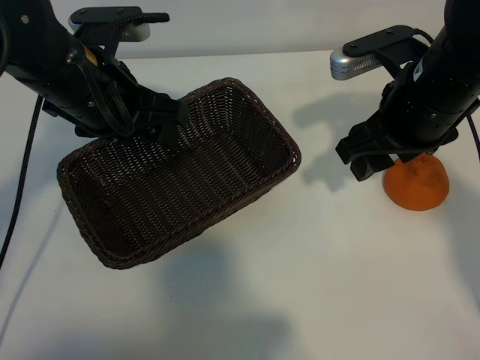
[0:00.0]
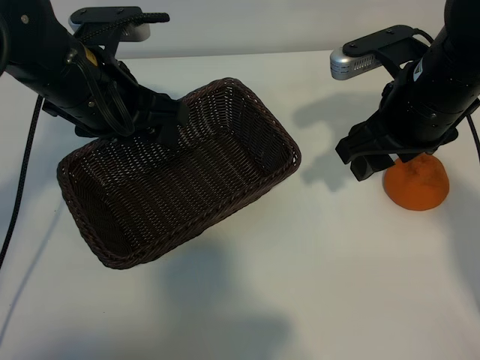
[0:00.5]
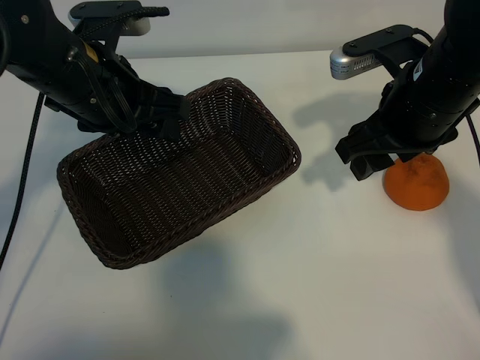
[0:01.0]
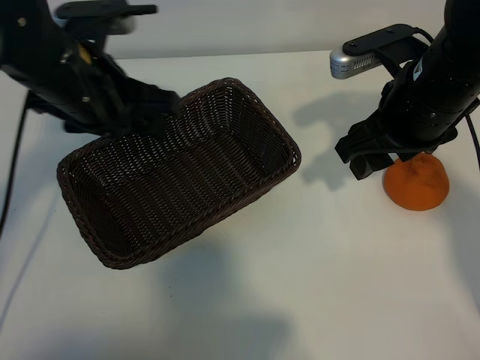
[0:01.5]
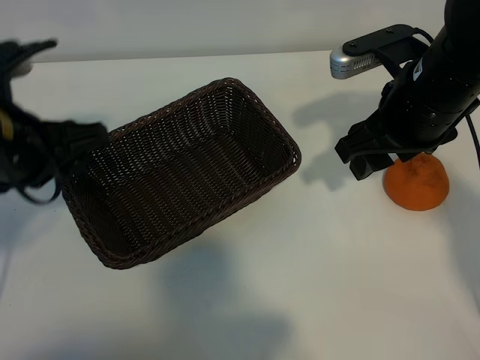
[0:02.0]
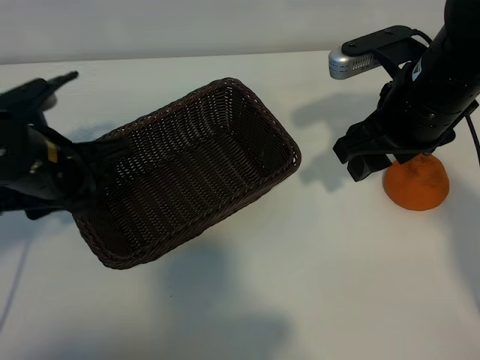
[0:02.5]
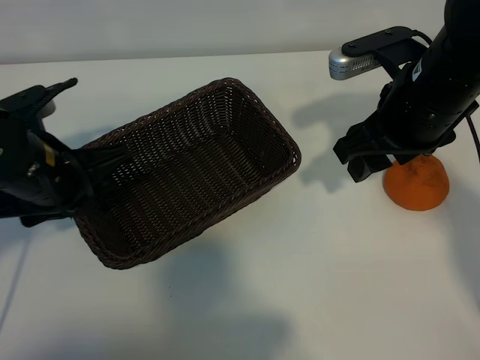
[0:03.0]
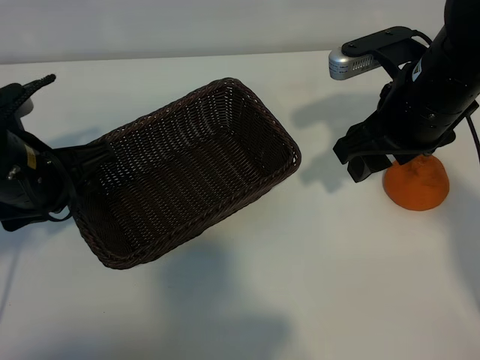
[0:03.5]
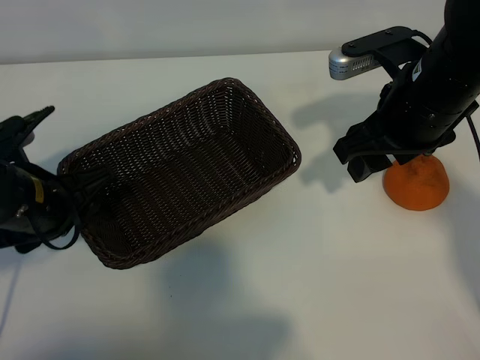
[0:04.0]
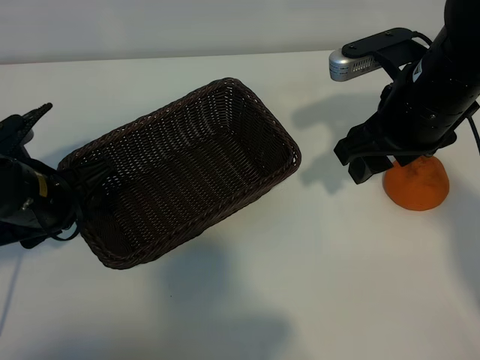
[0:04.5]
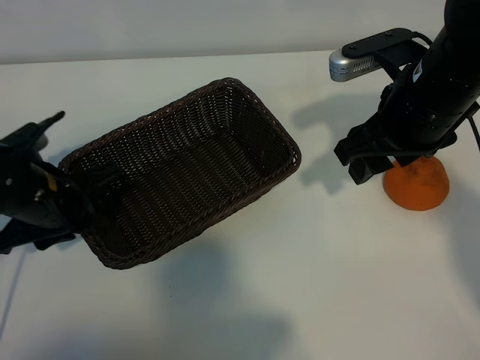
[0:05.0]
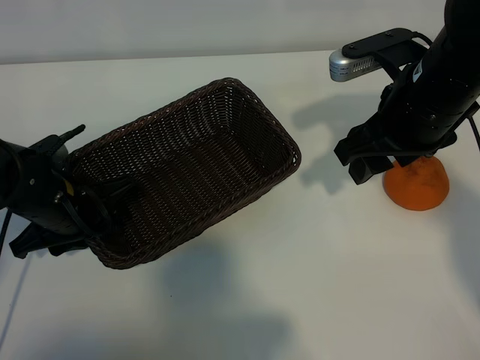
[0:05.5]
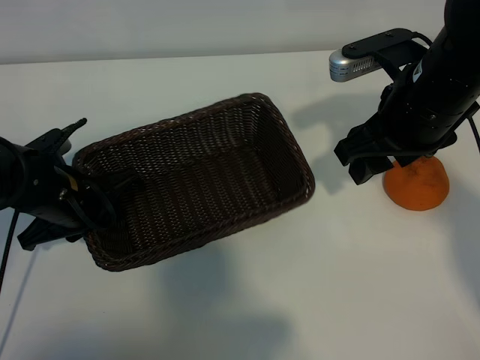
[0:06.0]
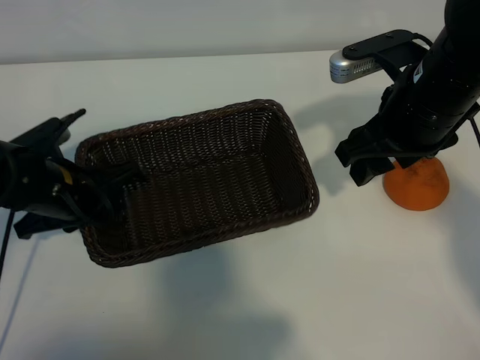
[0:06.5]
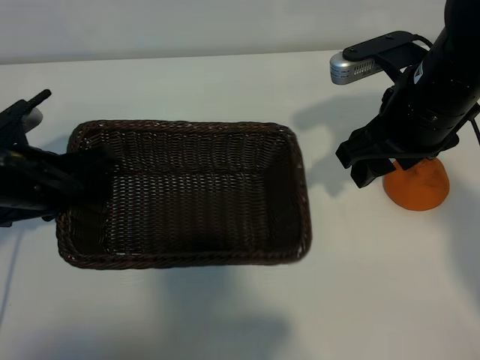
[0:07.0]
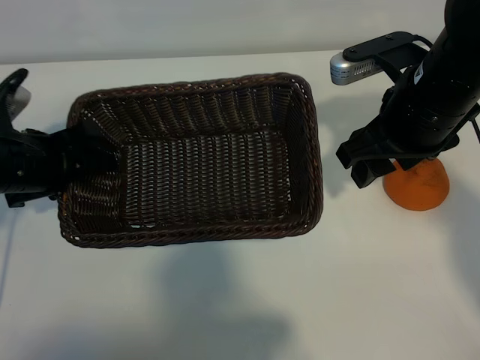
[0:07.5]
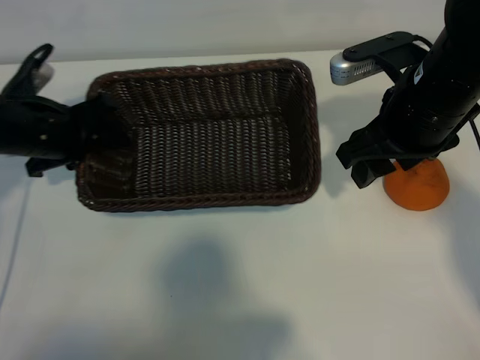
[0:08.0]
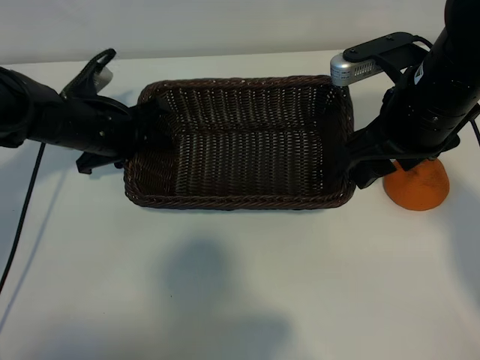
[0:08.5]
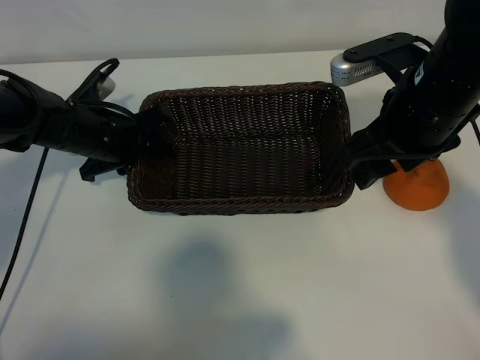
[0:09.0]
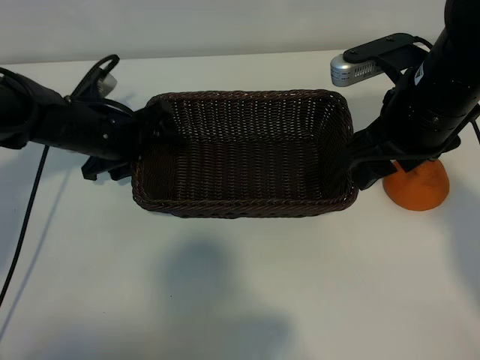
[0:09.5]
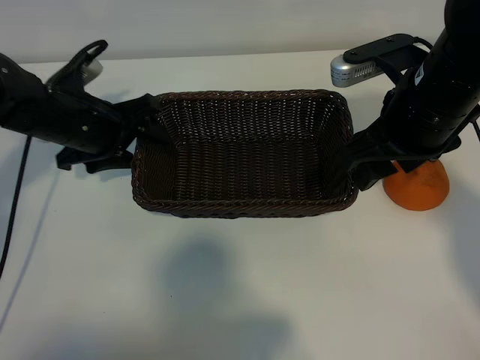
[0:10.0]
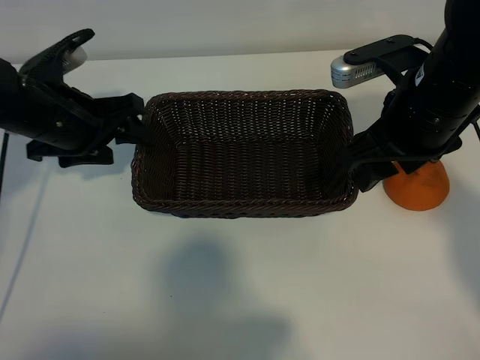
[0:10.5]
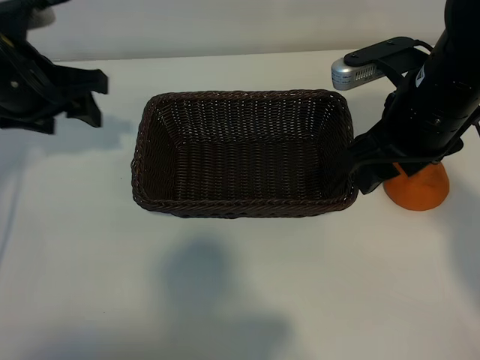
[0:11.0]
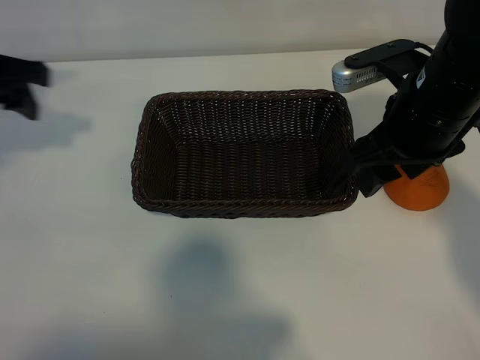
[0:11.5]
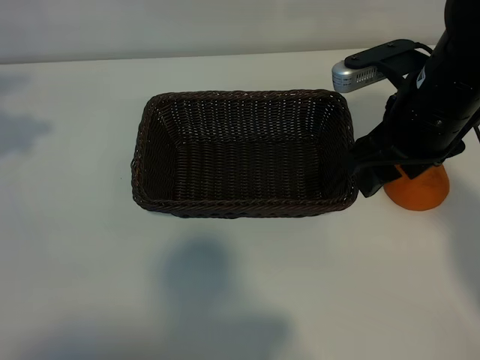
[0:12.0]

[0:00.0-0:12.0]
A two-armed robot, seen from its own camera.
Task of the whole recording: pick up the orange and put it into the basket.
Step, 0:01.0 to 0:05.5: Grasp the basket with left gripper.
Step, 0:06.0 to 0:09.0: Place the basket in the center of view with left gripper.

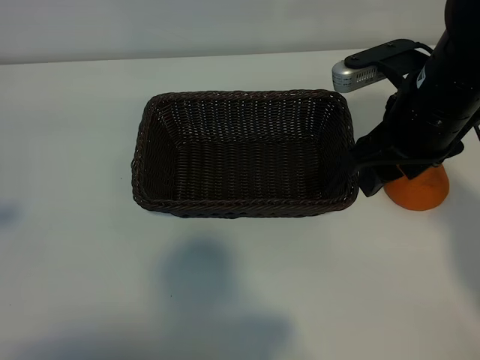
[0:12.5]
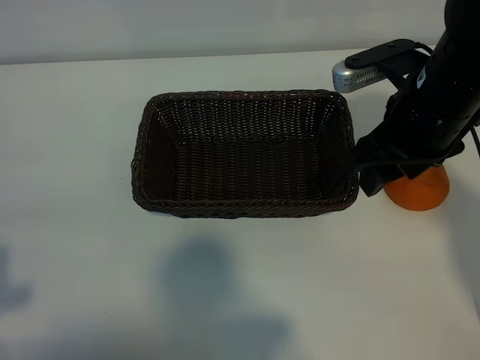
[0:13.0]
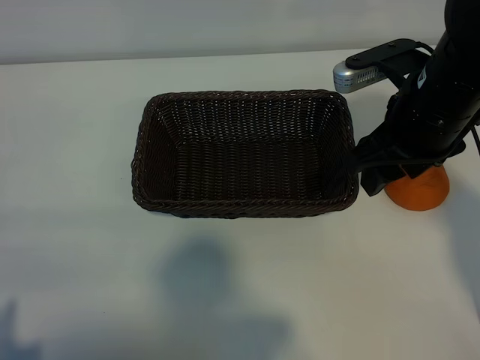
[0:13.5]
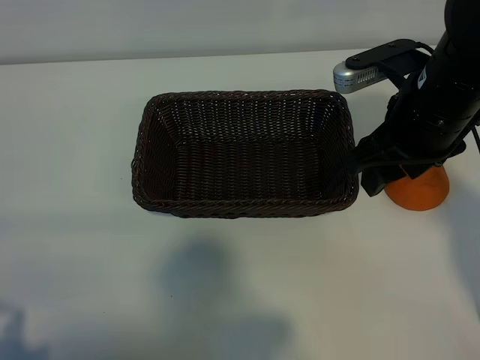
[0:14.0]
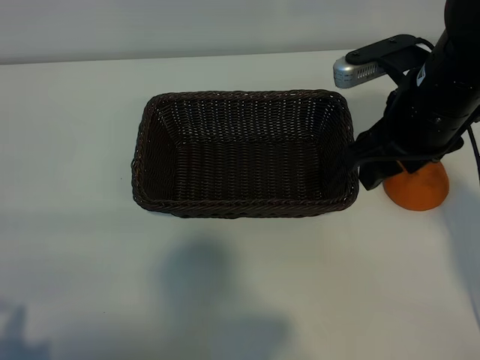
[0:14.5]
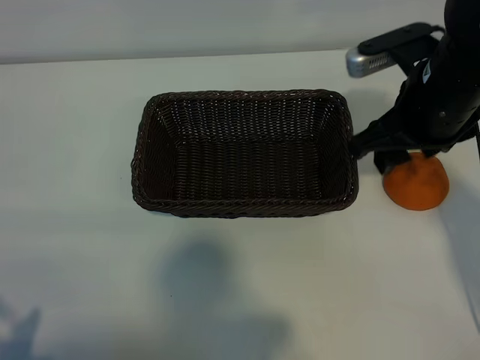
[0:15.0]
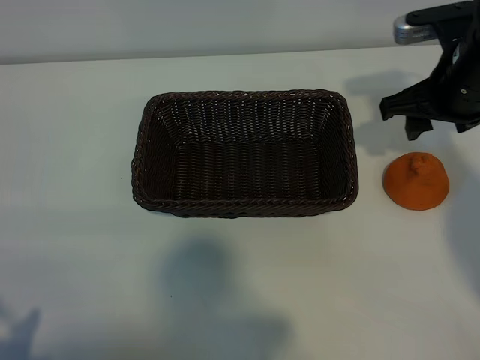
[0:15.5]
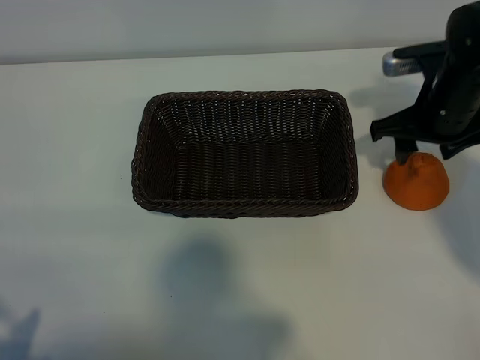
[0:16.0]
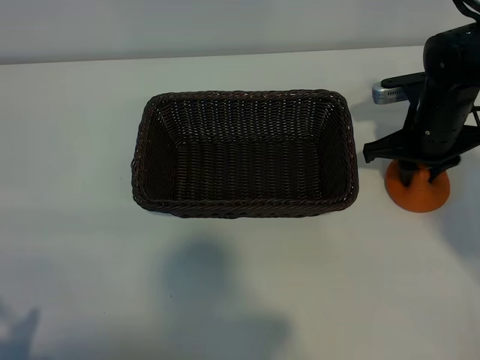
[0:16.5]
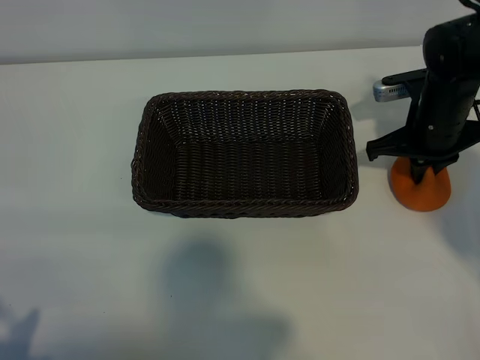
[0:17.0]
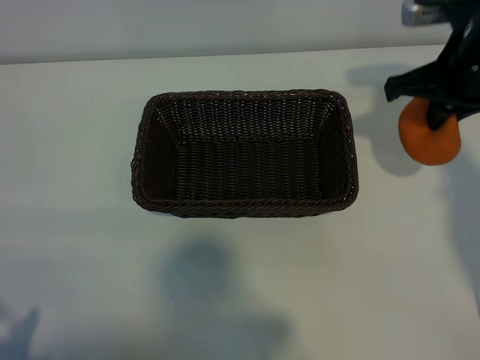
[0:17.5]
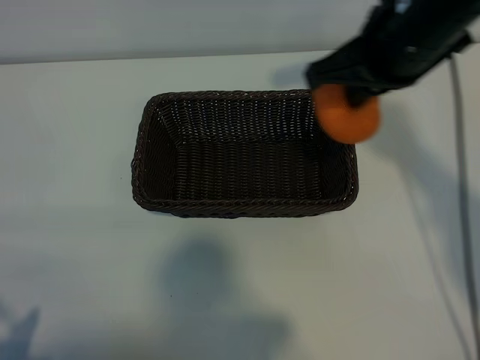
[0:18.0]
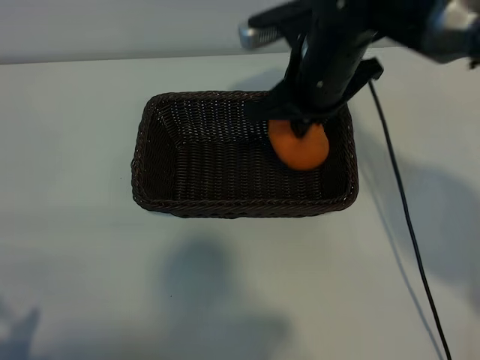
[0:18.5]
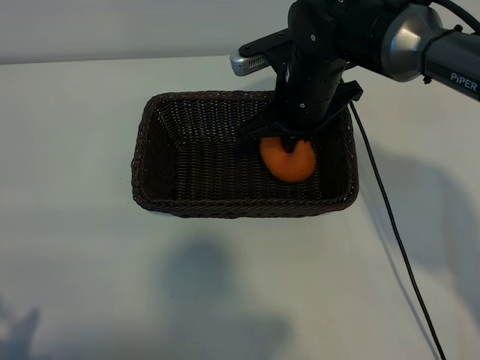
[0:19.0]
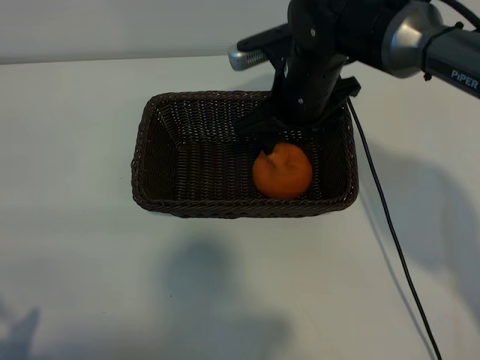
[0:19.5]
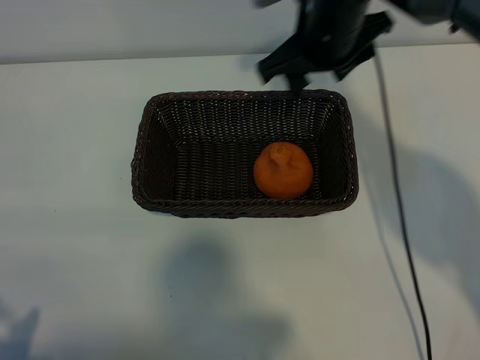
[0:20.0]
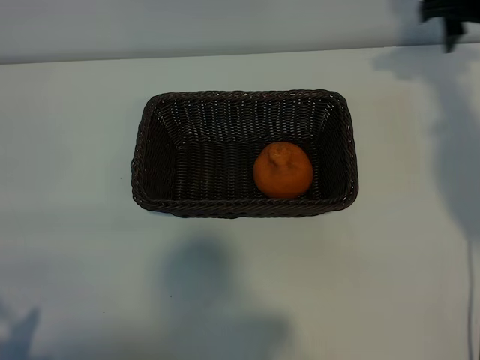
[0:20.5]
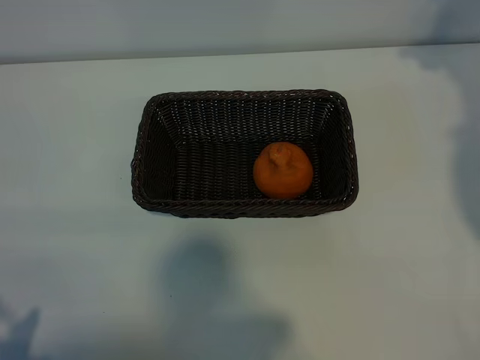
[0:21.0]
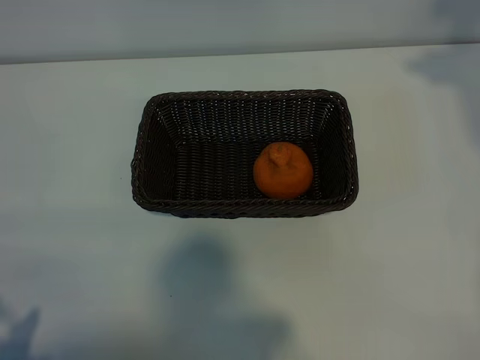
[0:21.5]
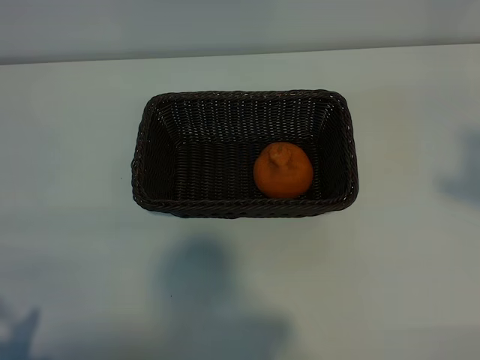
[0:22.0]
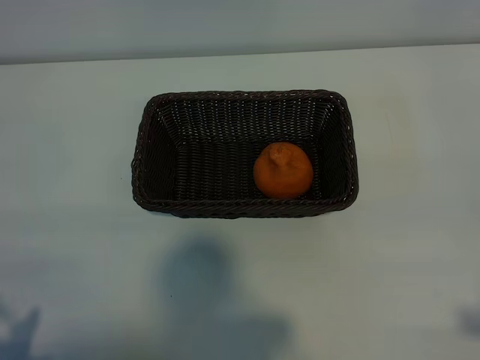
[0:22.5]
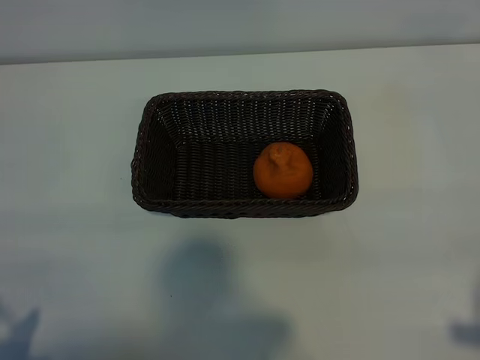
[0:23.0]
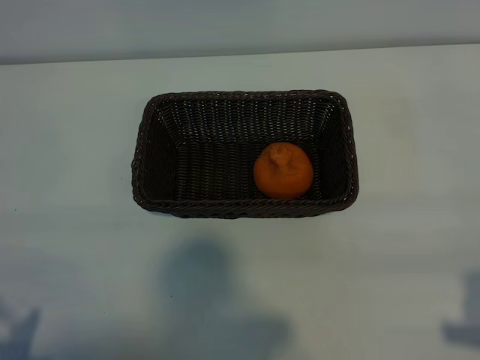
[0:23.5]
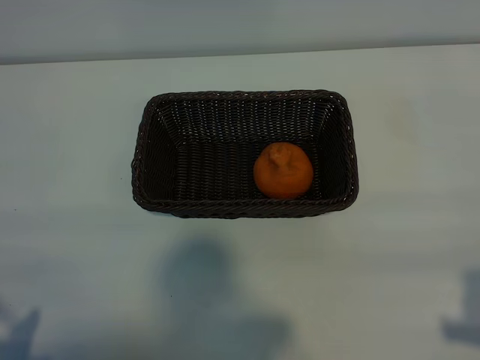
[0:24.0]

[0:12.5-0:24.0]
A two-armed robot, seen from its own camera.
Task of the whole recording: pick up the orange and put it into the basket.
Step, 0:12.5 to 0:16.5: Grasp the orange with right gripper.
Step, 0:17.0 to 0:19.0: Place the orange in the basket with right gripper.

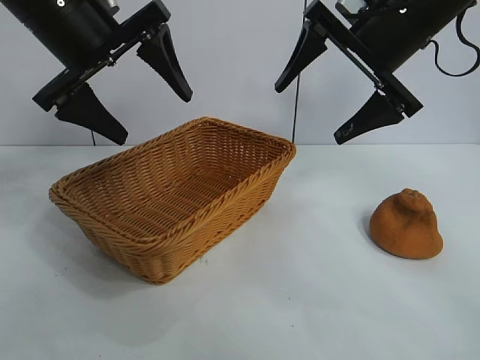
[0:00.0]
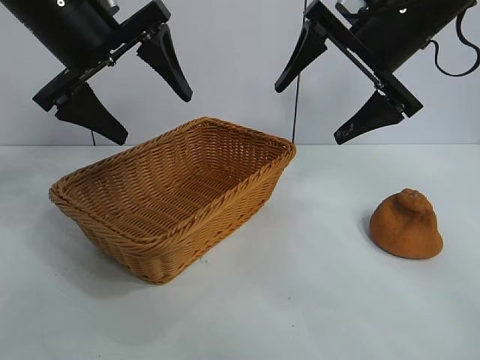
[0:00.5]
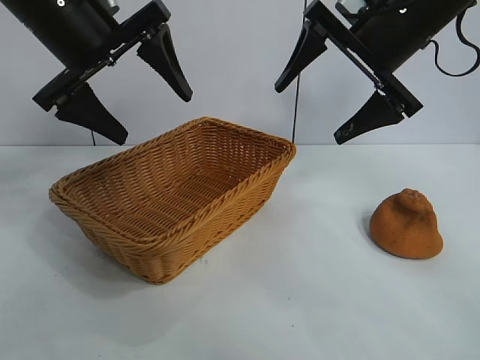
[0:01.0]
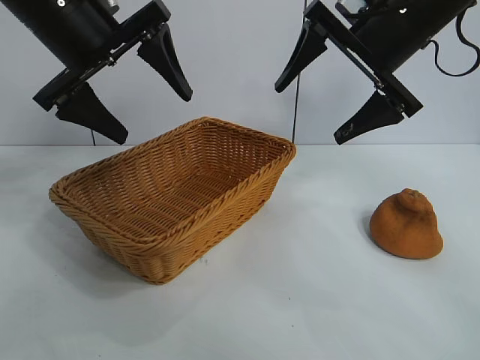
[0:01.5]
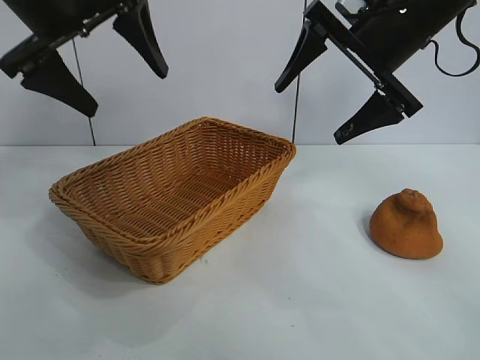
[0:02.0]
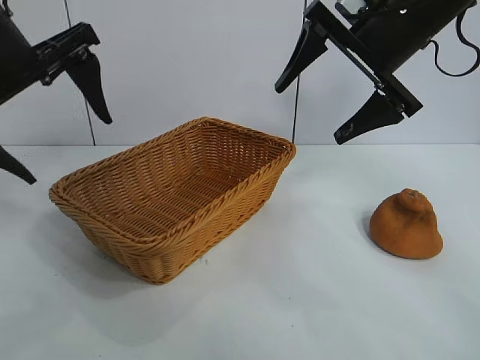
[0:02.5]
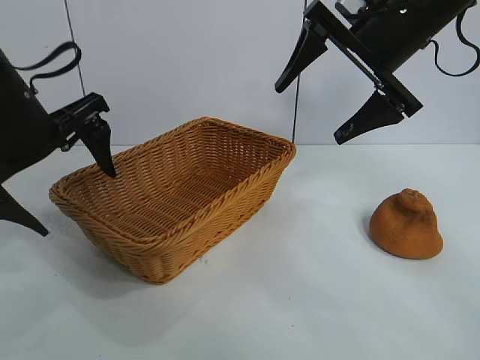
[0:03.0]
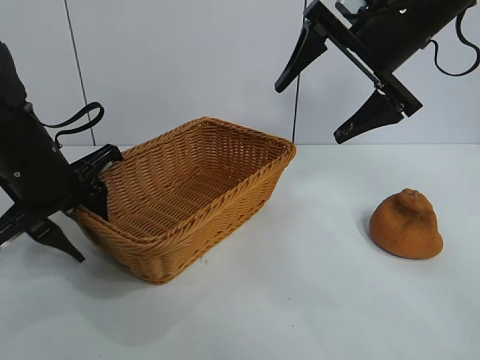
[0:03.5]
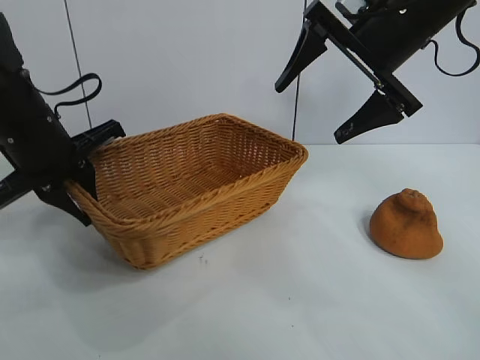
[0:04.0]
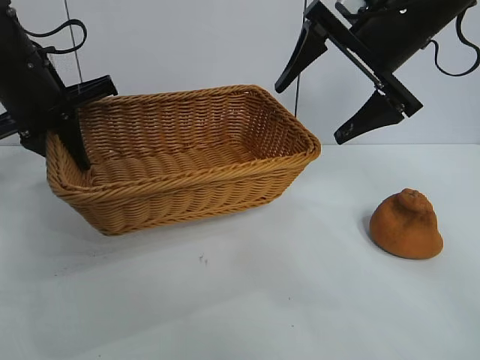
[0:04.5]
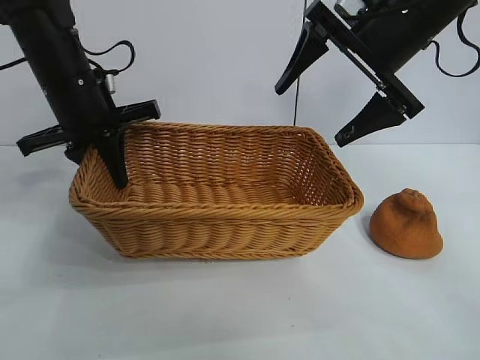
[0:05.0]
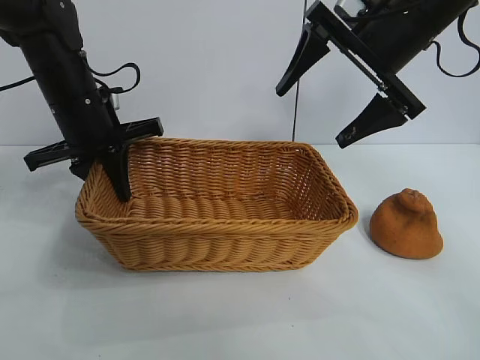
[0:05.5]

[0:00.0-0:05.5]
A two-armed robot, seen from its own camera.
Task of the whole recording: pick up the orange and put it into the basket.
Step, 0:01.5 to 0:03.5: Grasp the basket with left gripper.
